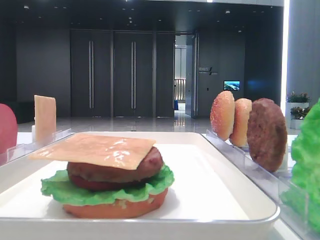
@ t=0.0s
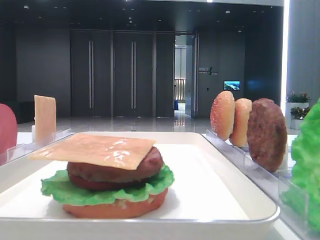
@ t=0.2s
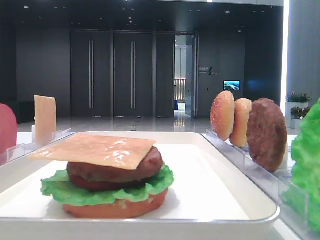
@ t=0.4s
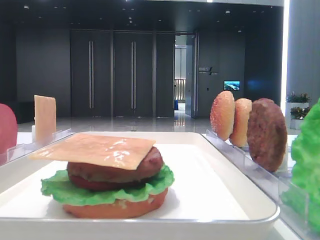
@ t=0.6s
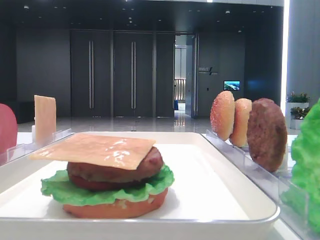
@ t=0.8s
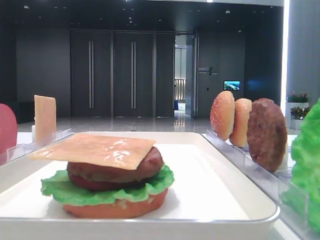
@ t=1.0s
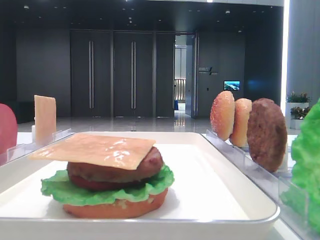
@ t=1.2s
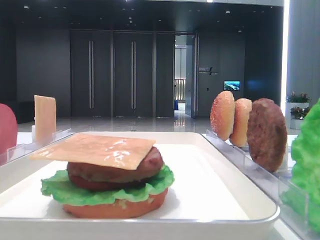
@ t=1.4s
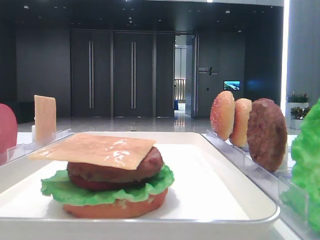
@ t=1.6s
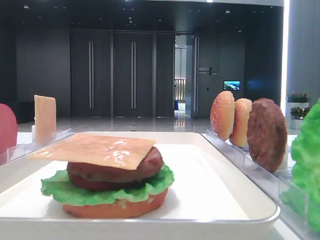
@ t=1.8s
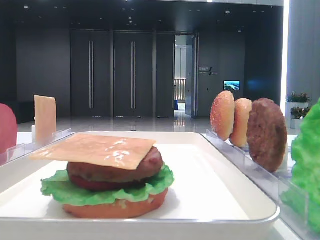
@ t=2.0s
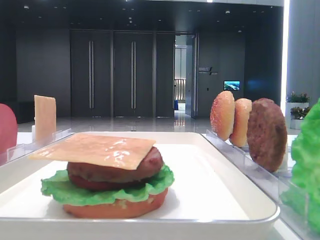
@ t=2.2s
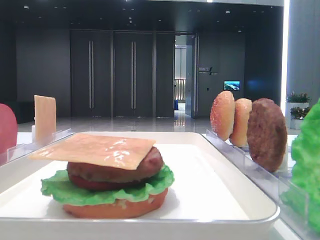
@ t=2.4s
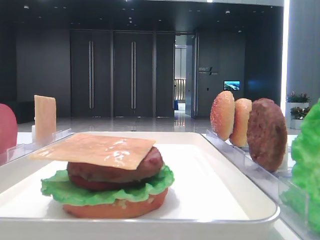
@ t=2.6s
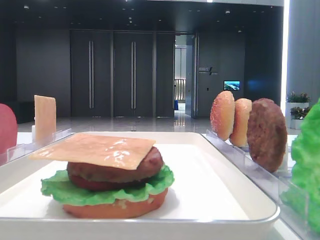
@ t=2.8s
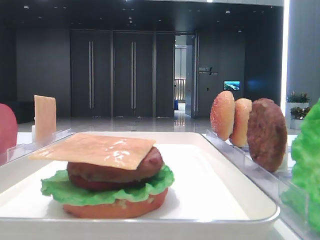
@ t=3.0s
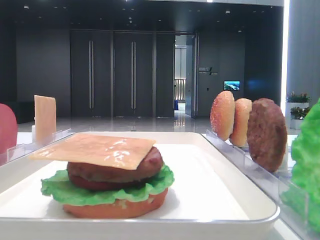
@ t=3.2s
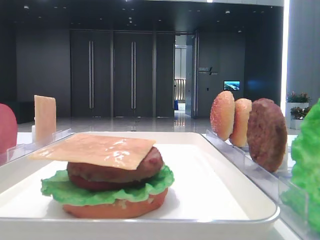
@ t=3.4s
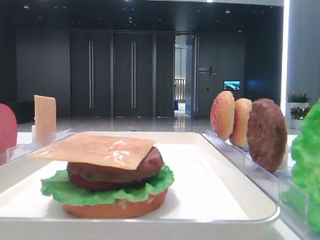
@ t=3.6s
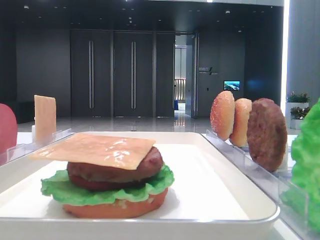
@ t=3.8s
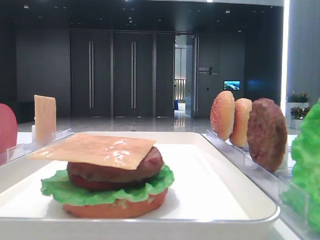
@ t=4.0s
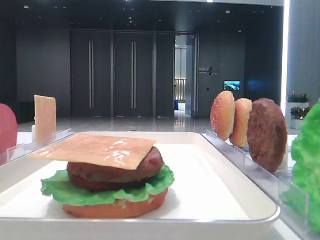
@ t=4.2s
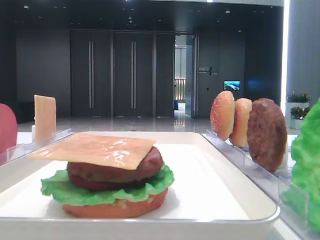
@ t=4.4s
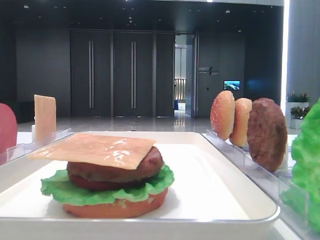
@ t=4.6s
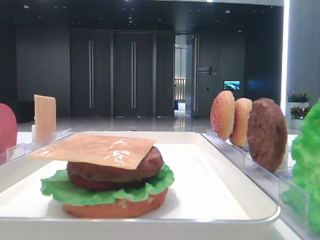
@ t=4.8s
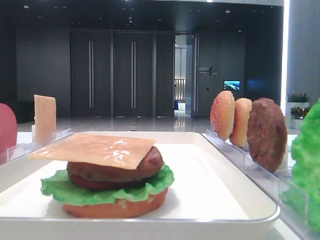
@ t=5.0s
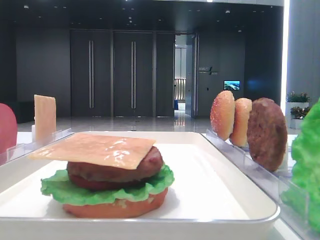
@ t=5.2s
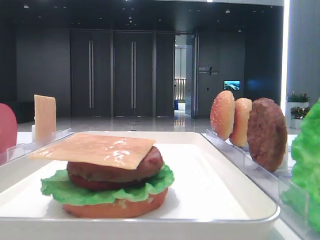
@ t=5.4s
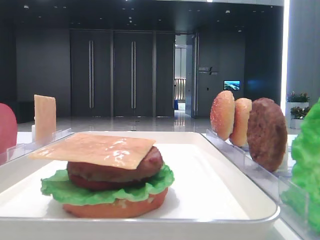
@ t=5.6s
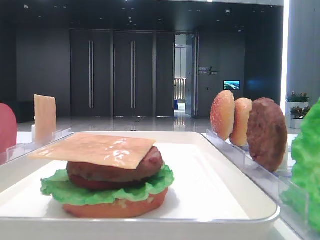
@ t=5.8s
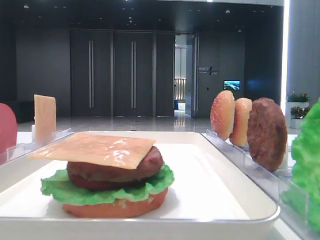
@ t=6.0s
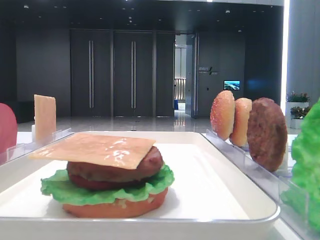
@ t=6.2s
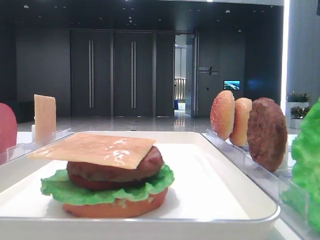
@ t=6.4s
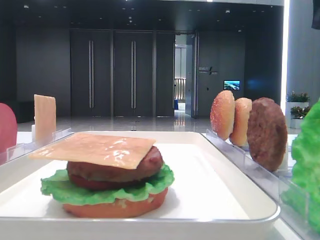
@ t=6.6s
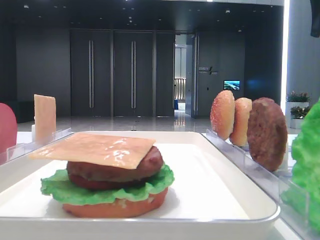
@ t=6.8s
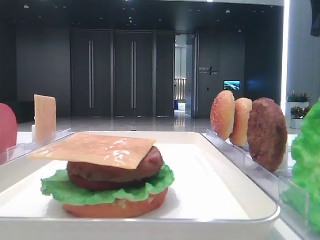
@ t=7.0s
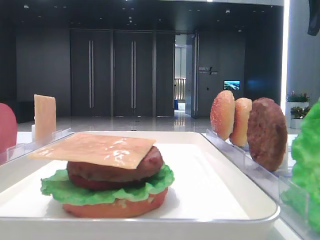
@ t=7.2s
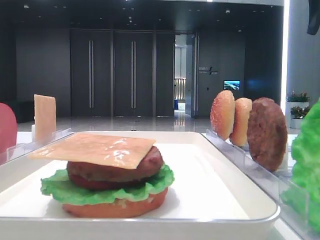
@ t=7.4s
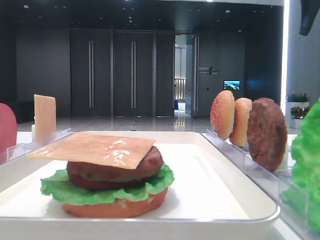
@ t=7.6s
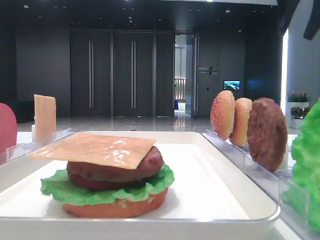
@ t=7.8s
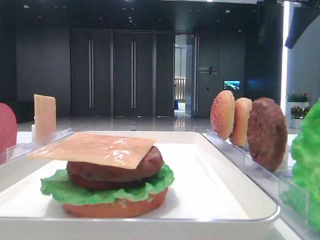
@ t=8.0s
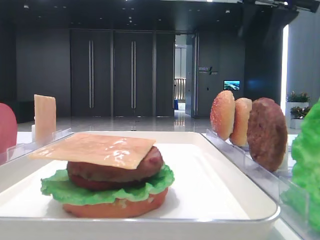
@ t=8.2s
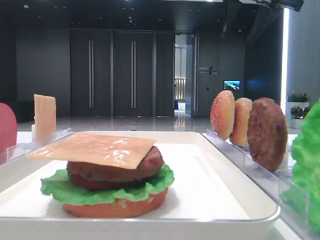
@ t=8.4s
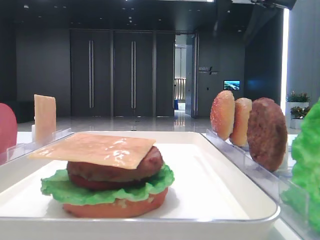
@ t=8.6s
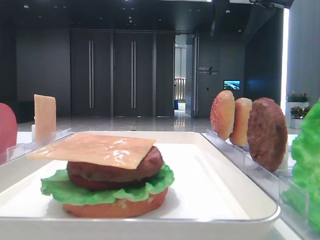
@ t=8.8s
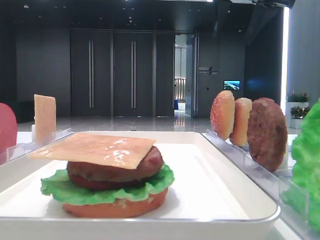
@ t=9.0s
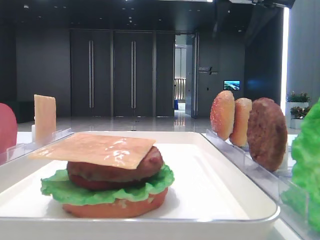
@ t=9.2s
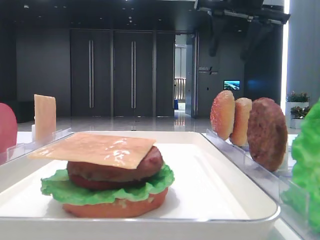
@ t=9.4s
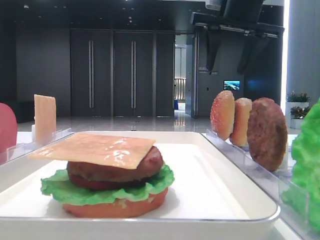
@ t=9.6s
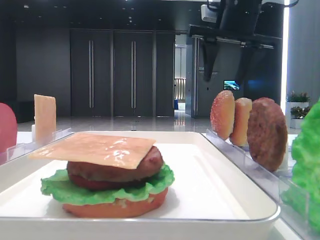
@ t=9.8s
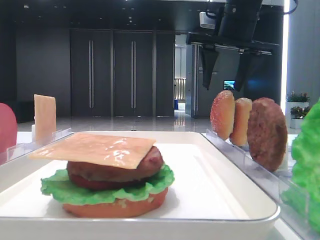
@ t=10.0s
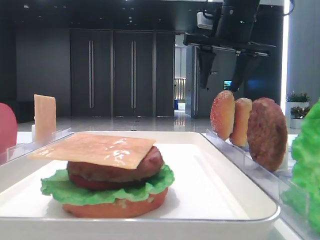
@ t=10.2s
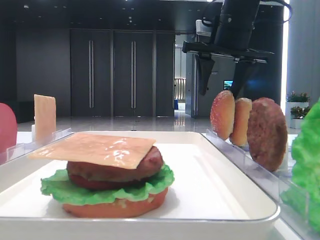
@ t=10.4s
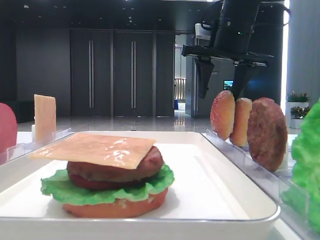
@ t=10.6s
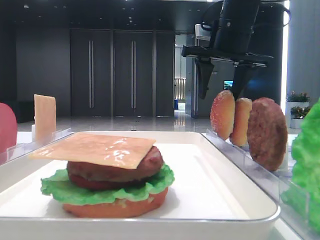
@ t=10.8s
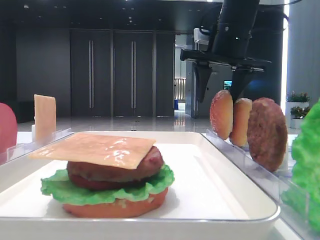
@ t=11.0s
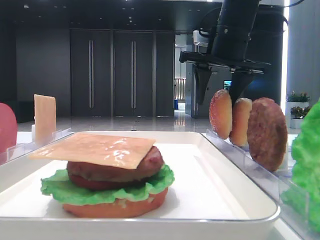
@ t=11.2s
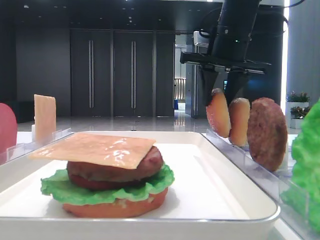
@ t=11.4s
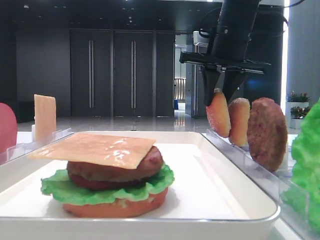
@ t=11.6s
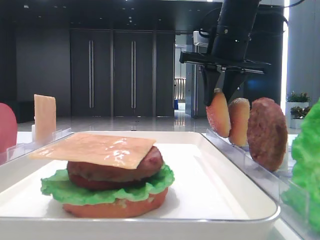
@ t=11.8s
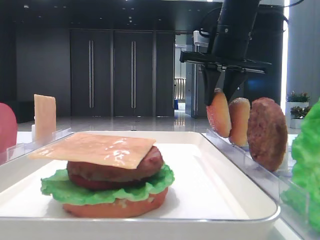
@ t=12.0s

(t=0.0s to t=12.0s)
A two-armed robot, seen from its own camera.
Step, t=0.0s - t=11.4s: Pick up the top bread slice with the right hand.
t=1.6s - t=3.0s: Both grippers stay put.
t=6.0s - t=7.6s: The right gripper heads forward, covering roughly 10 cm.
t=7.6s - t=9.0s: The right gripper moves to the left, approximately 15 cm.
t=9.0s - t=10.4s: The right gripper shifts about 10 cm downward.
t=10.4s - t=12.0s: The right gripper closes its fingers.

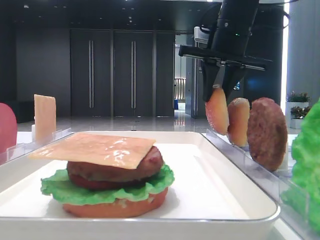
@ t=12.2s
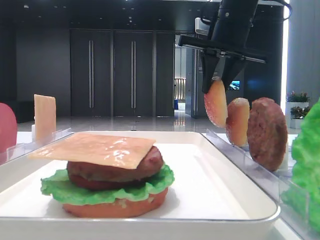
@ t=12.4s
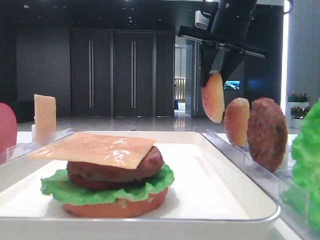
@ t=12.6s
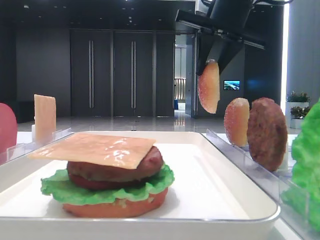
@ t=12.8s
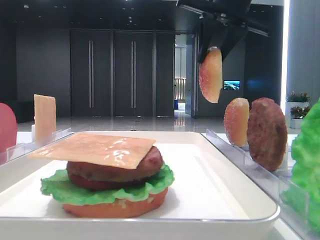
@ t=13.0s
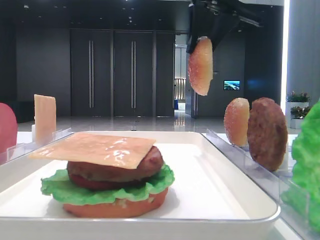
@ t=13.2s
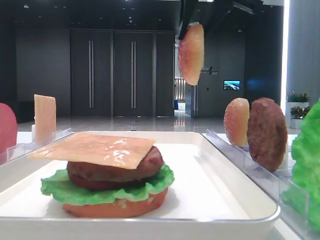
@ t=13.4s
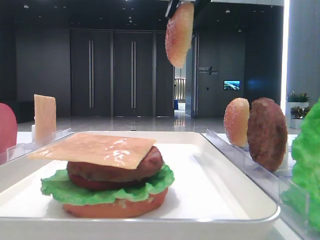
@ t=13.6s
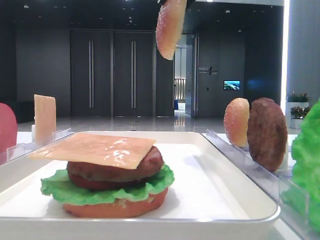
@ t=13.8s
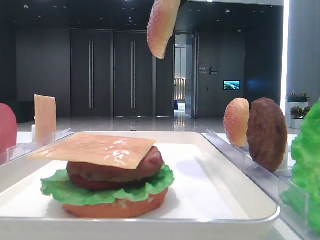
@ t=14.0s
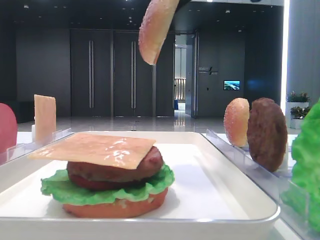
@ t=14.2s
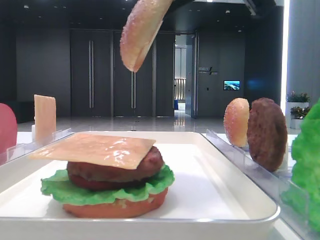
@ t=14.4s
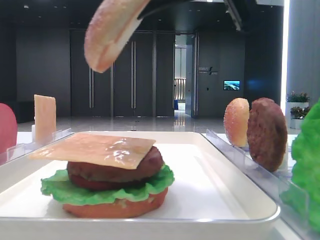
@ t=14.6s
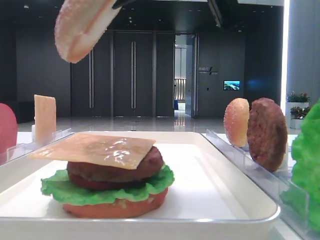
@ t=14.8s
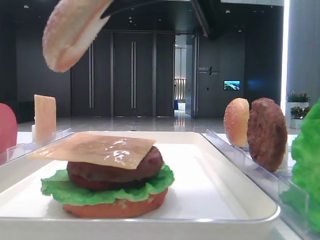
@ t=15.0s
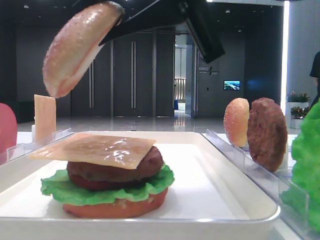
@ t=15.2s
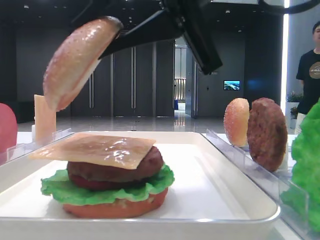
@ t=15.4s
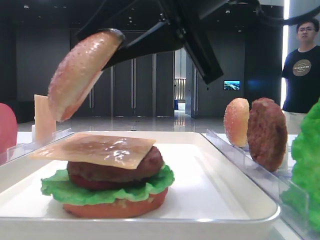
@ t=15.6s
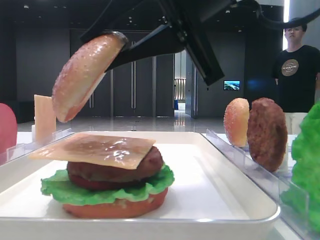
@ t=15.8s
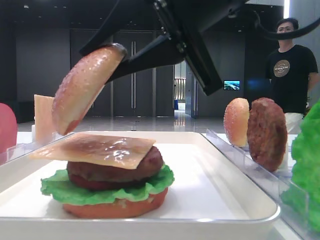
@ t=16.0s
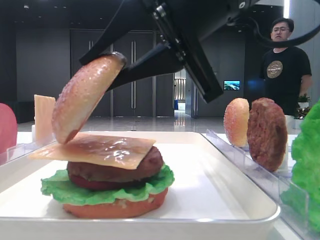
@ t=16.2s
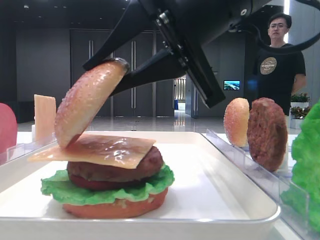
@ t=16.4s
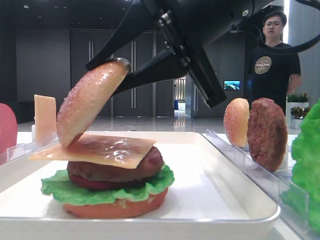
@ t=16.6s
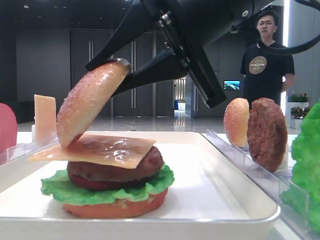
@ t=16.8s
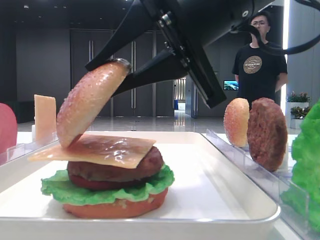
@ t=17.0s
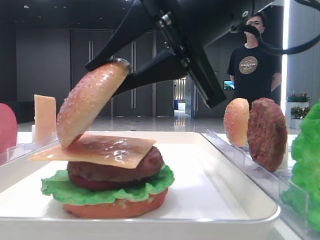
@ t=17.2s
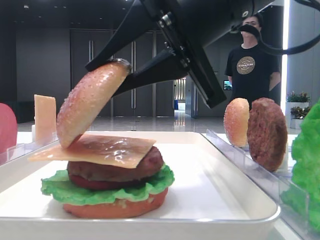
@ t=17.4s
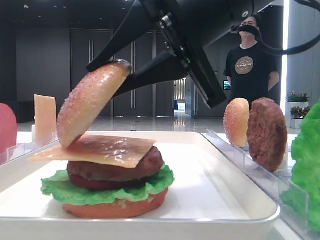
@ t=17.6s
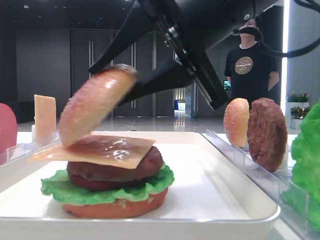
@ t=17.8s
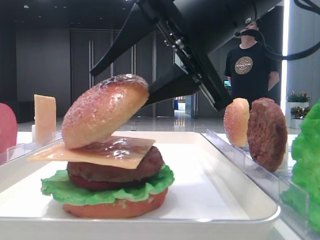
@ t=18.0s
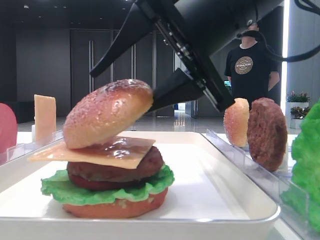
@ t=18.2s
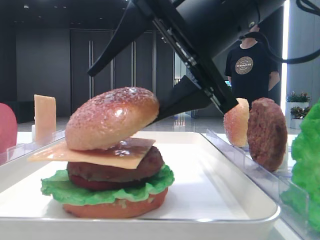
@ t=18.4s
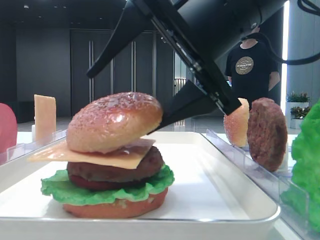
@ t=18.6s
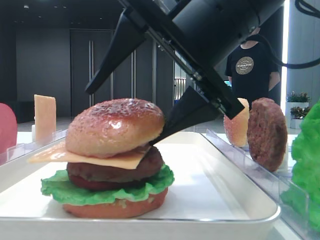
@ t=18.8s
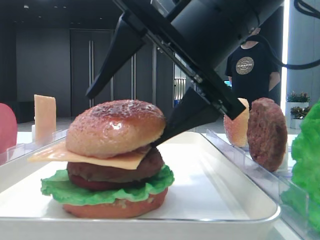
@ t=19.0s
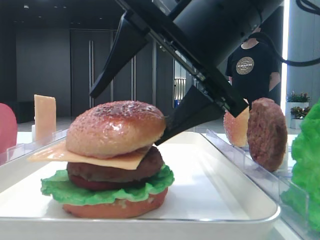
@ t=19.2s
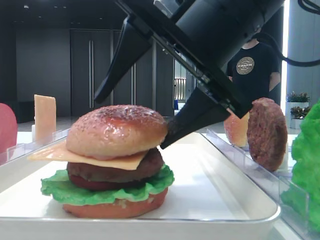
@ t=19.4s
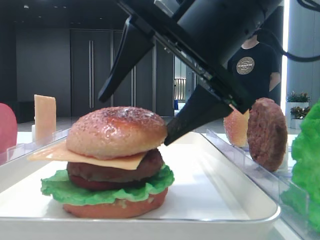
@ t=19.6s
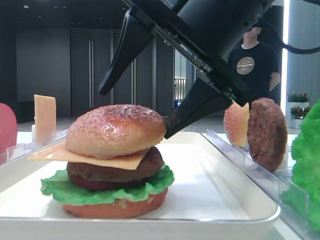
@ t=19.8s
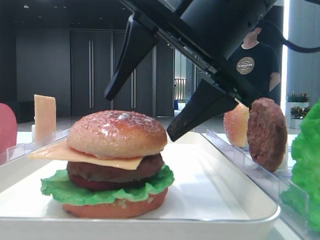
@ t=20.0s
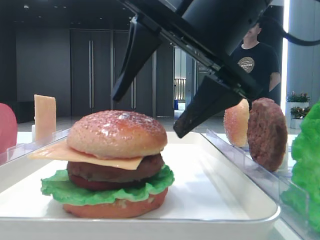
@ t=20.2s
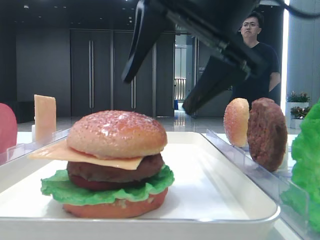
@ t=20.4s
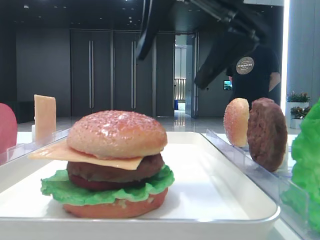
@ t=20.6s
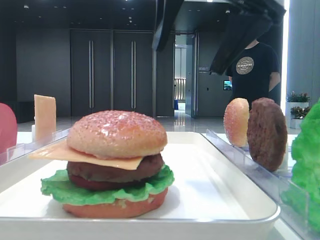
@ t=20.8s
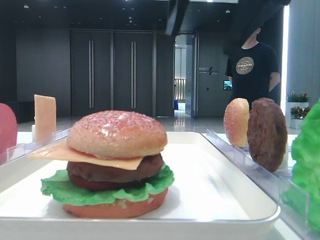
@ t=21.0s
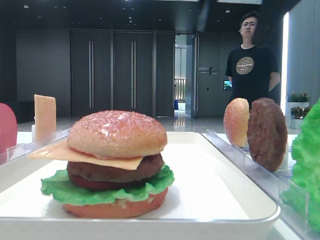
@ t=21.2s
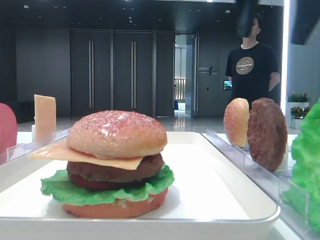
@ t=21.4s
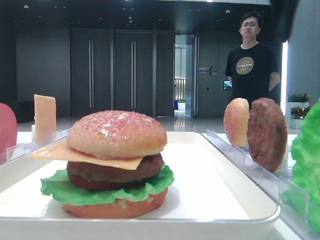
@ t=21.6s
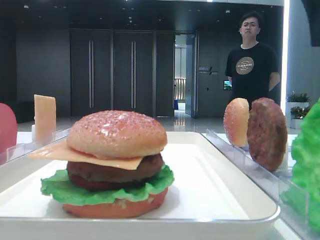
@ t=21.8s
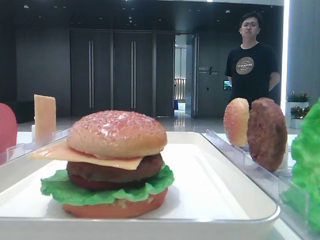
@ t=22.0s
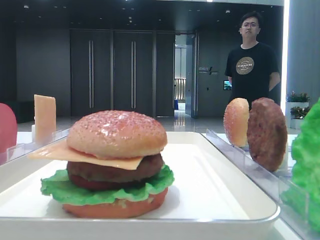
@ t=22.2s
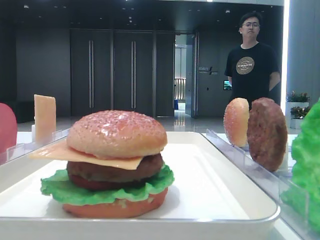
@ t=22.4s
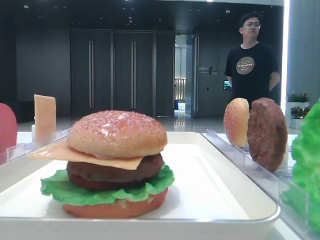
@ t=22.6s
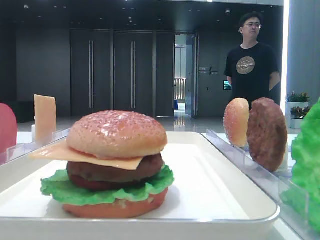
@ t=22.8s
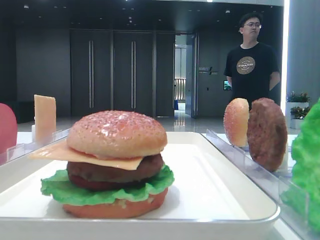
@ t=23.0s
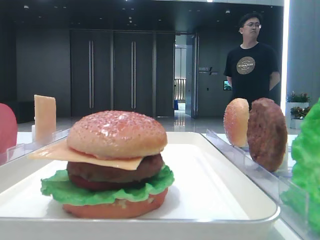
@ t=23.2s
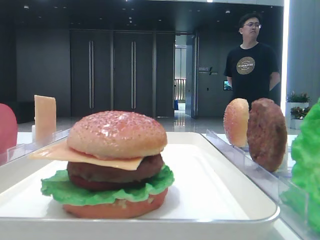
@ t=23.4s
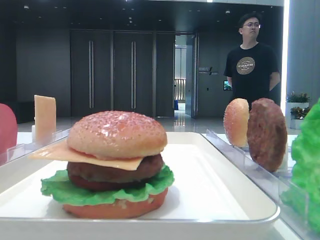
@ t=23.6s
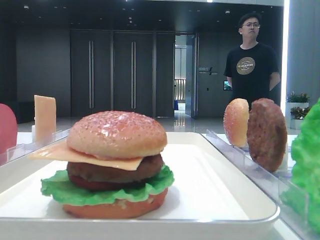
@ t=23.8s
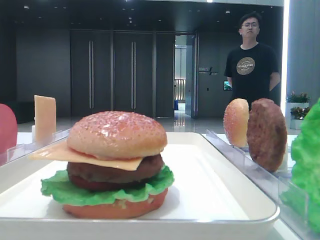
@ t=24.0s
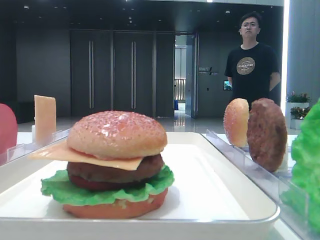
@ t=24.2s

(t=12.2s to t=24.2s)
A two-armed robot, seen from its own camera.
Step, t=12.2s - t=19.8s: Place the top bread slice on the cheese with the right hand.
t=12.2s - t=13.8s: The right gripper shifts roughly 15 cm backward and upward.
t=13.8s - t=15.2s: The right gripper goes approximately 15 cm backward and downward.
t=16.6s - t=18.2s: The right gripper opens up.
t=18.2s - t=19.8s: The right gripper opens.
t=19.8s - t=21.2s: The right gripper shifts approximately 10 cm upward.
t=21.2s - t=22.6s: The right gripper shifts approximately 20 cm to the right.
